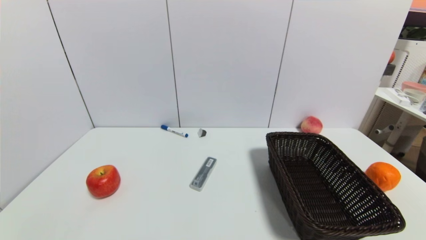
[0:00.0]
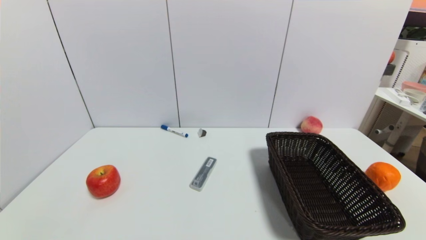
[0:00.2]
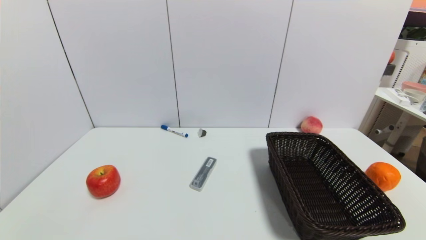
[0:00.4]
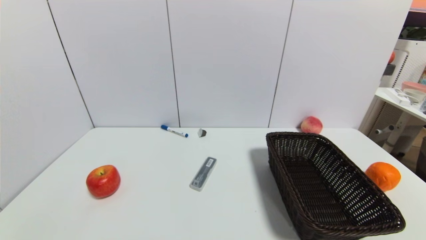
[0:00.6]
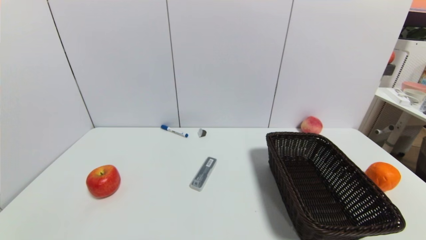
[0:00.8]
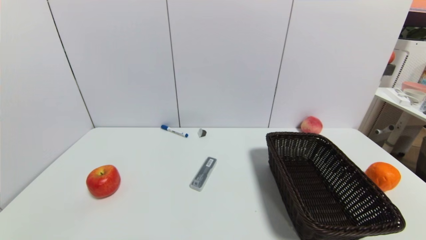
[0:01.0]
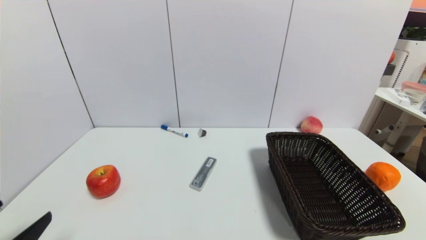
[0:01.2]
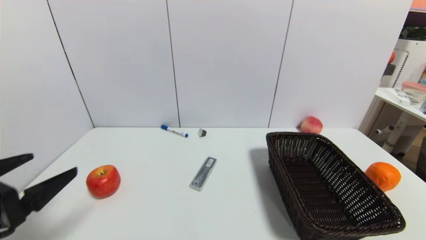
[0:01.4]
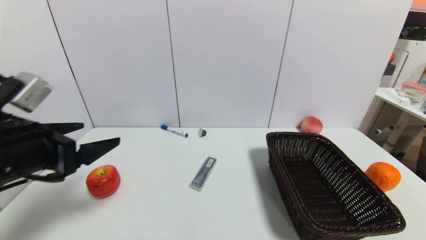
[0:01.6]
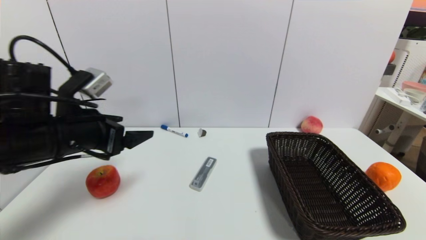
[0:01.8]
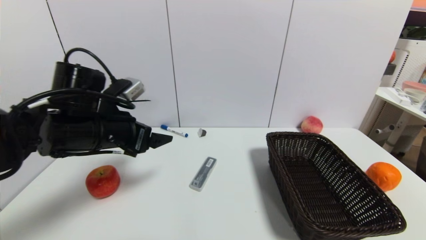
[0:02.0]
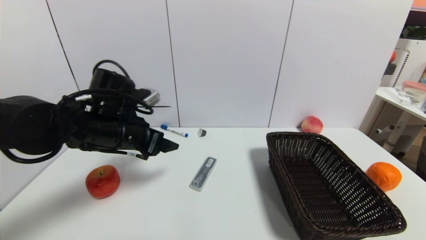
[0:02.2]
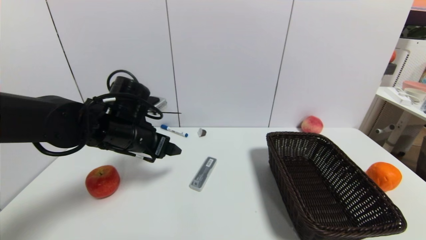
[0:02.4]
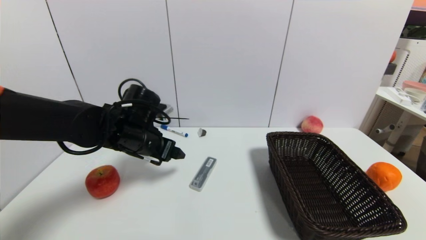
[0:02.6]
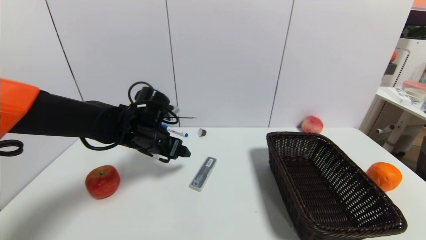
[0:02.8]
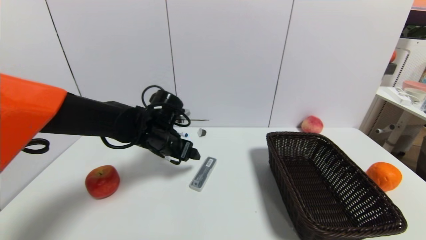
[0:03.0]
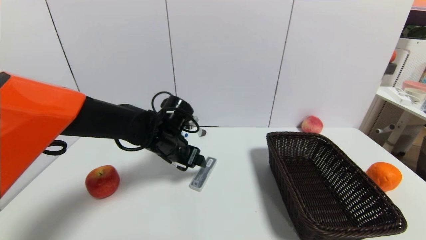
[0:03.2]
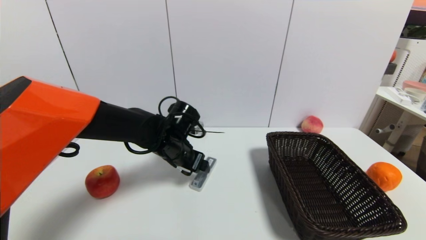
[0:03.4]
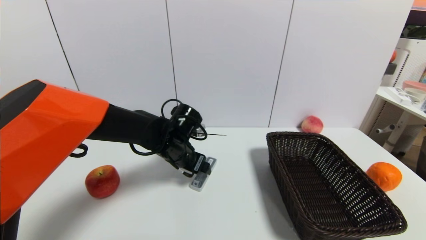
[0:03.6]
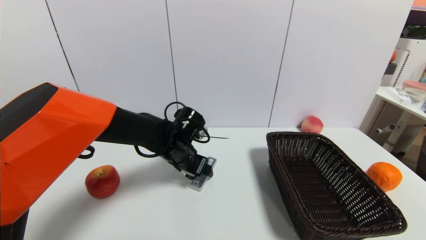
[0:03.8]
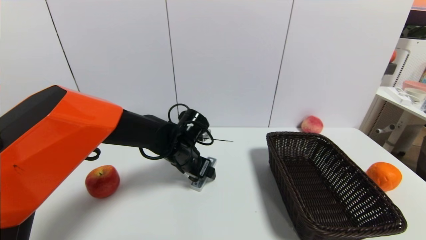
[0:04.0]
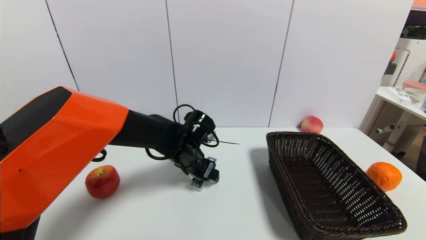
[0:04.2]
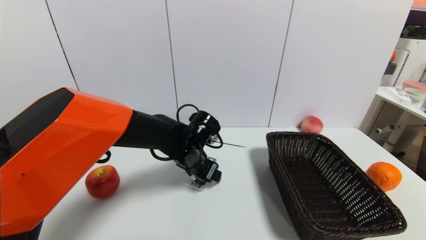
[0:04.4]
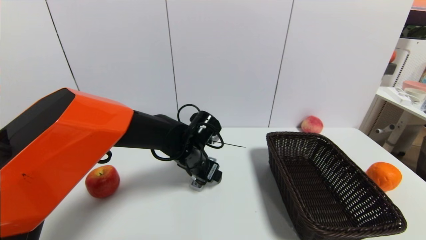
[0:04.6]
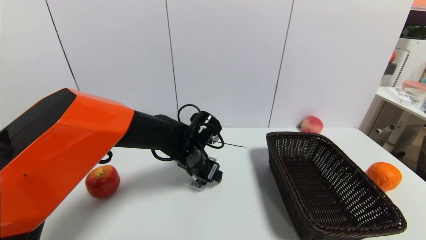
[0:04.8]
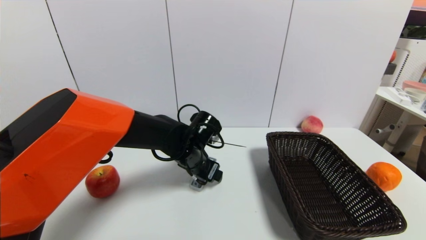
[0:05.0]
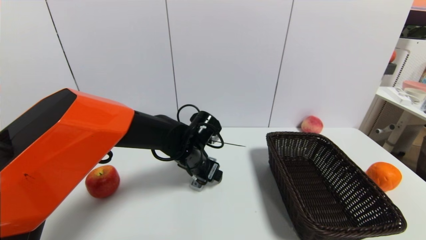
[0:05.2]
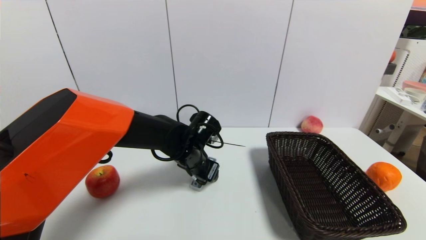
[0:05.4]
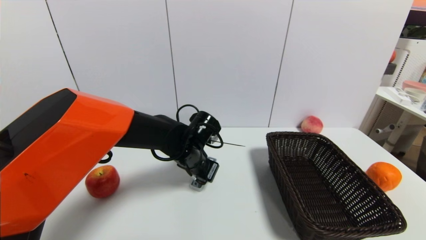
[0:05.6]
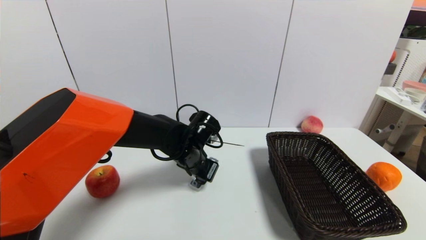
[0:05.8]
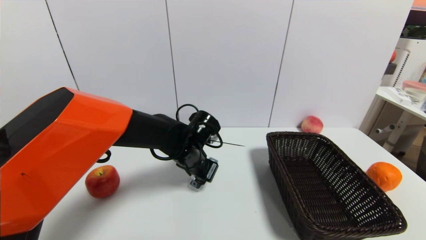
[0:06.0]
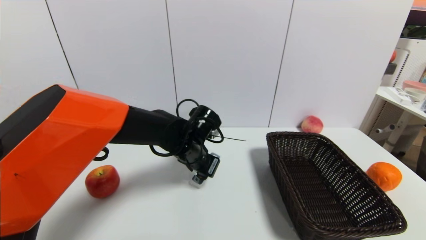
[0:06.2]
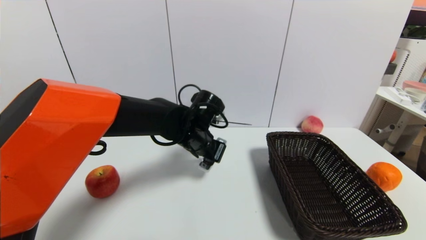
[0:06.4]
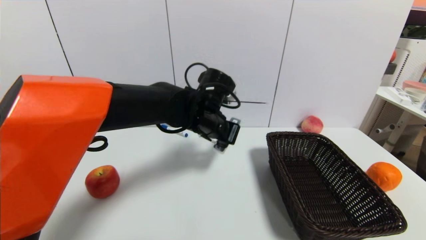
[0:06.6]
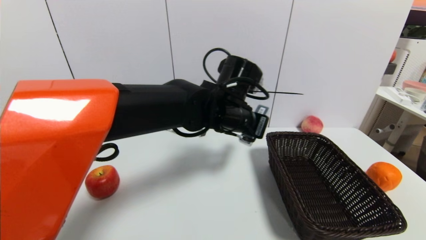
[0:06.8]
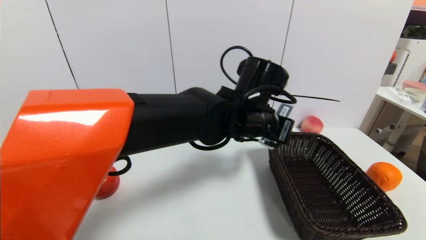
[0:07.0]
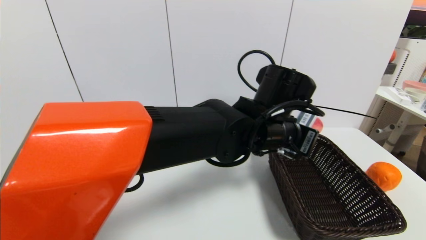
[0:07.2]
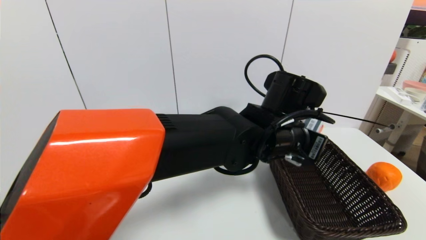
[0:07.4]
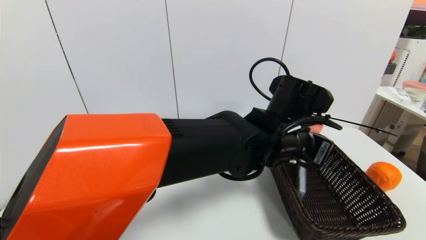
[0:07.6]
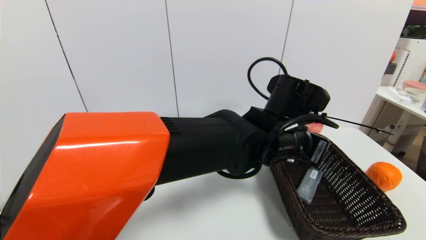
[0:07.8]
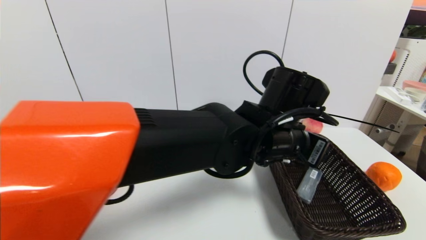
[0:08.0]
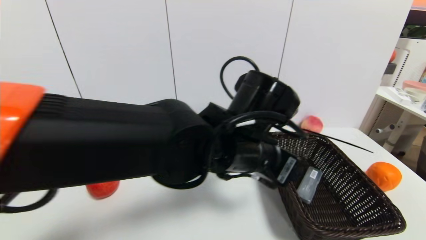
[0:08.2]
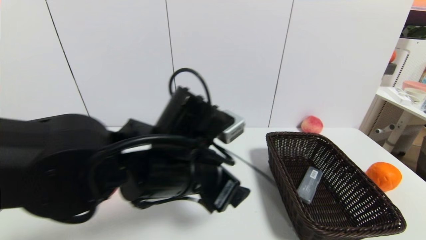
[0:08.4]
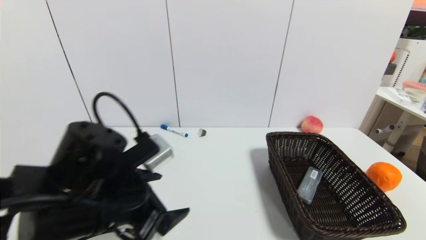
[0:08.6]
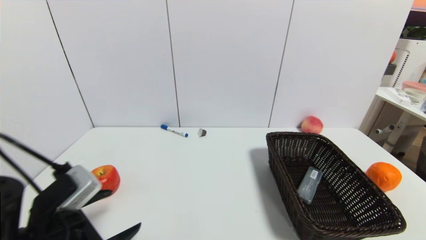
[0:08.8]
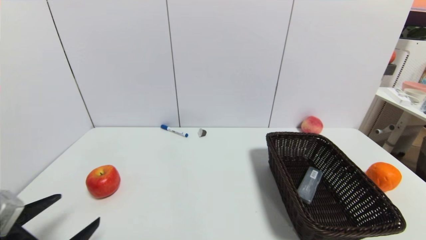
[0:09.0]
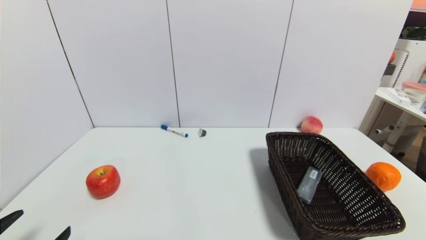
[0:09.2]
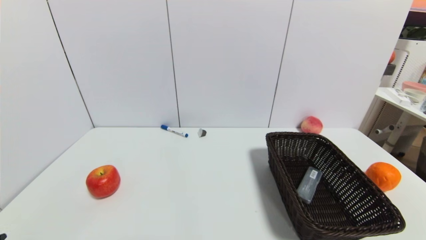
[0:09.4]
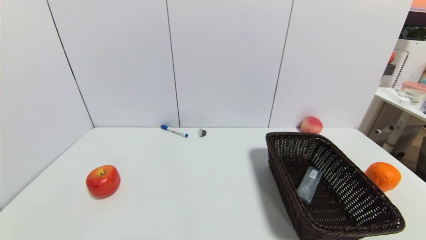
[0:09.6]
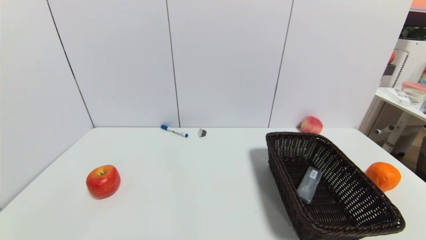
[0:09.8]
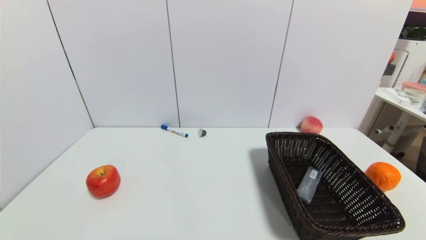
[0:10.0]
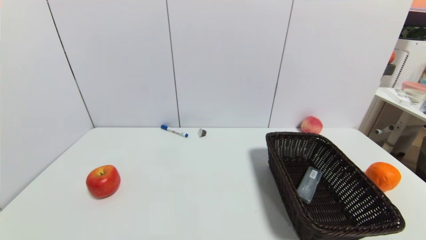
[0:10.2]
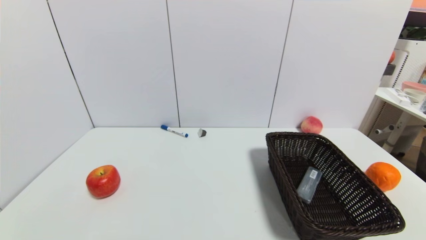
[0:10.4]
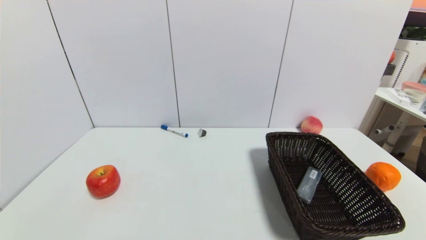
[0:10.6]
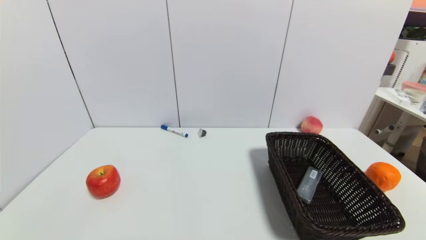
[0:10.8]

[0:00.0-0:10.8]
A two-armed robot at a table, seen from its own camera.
Task of the whole recording: use a gripper to pick the target object and place on the brown basket.
Step, 0:00.0 to 0:06.0: Grasp the compasses with the left gripper.
Step, 0:06.2 to 0:08.2: Place the compasses into the basket with the left gripper.
0:00.0 to 0:01.6: The left gripper is displaced forward and upward by about 25 cm.
0:01.6 to 0:03.0: The left gripper goes roughly 25 cm forward, to the right and downward.
0:03.0 to 0:04.6: The left gripper travels to the right by about 5 cm.
0:04.6 to 0:06.2: The left gripper closes.
0:06.2 to 0:07.8: The left gripper is displaced to the right, upward and backward by some 20 cm, and opens up.
0:07.8 to 0:09.2: The left gripper travels to the left and backward by some 50 cm, and opens its fingers.
